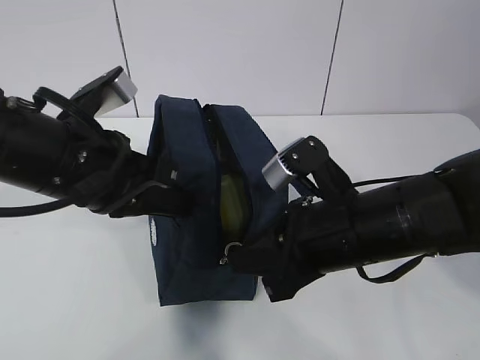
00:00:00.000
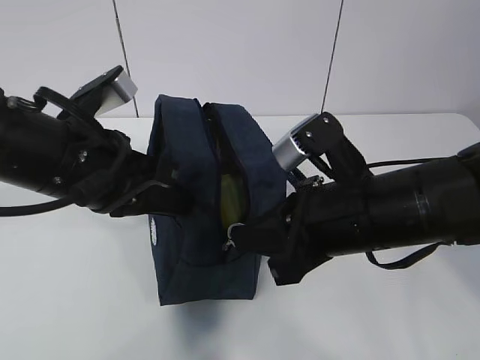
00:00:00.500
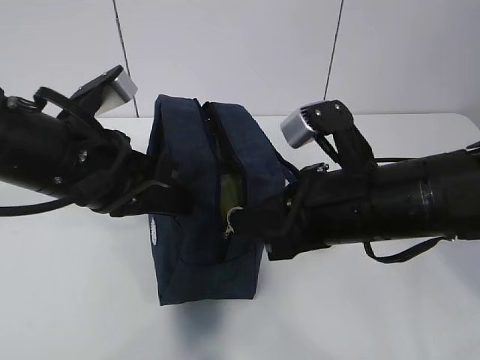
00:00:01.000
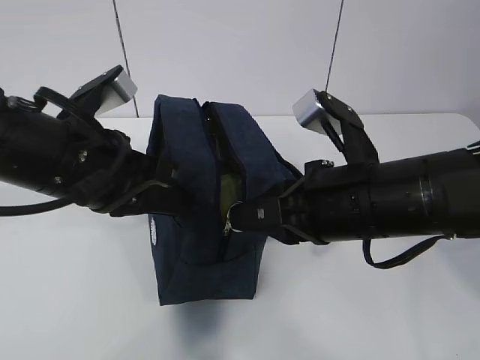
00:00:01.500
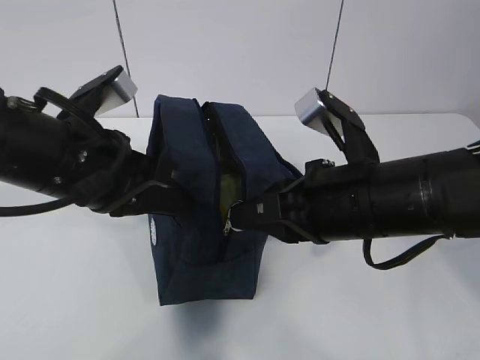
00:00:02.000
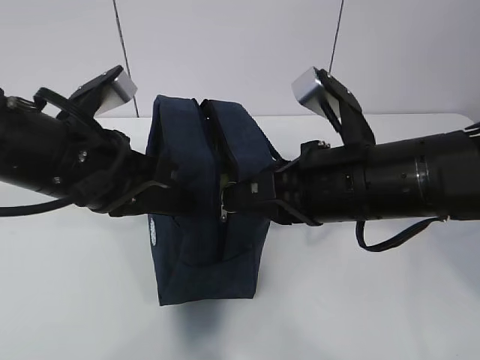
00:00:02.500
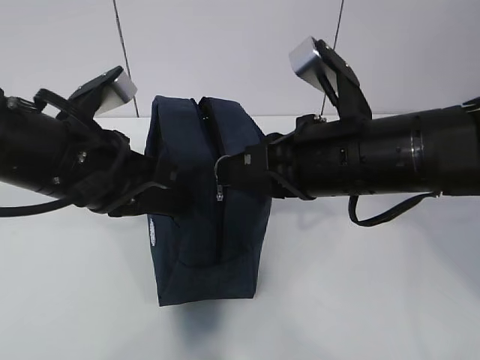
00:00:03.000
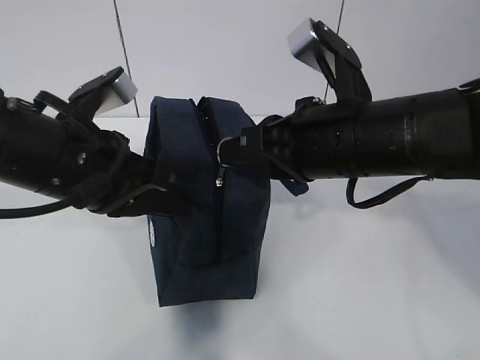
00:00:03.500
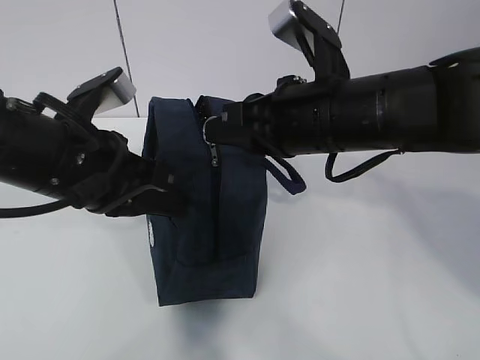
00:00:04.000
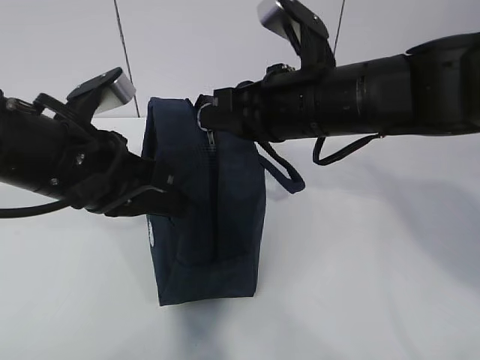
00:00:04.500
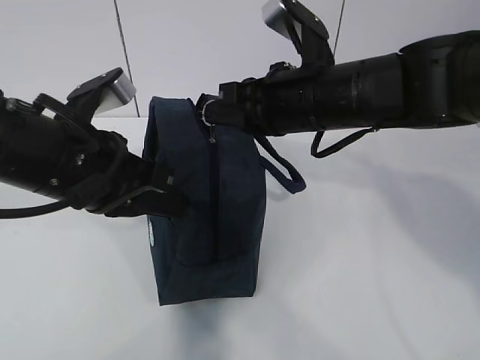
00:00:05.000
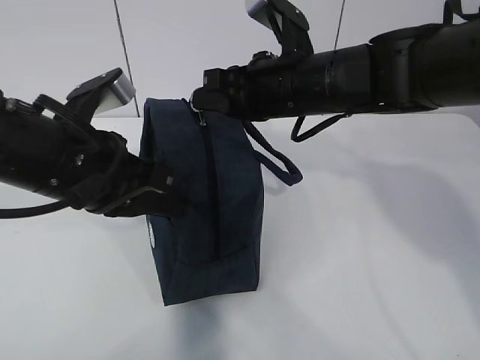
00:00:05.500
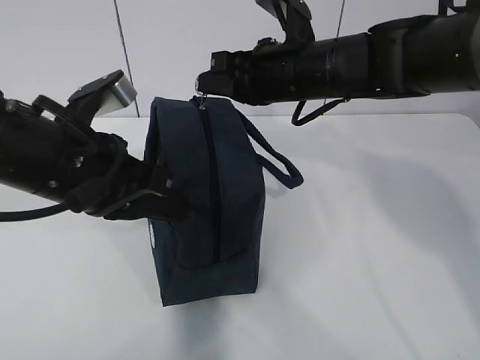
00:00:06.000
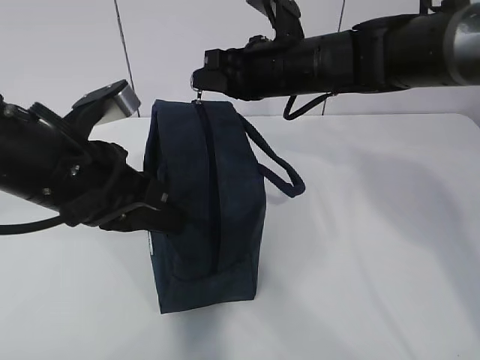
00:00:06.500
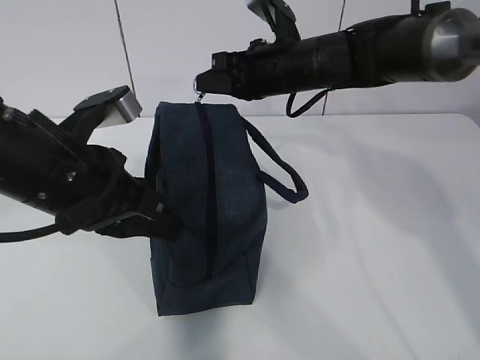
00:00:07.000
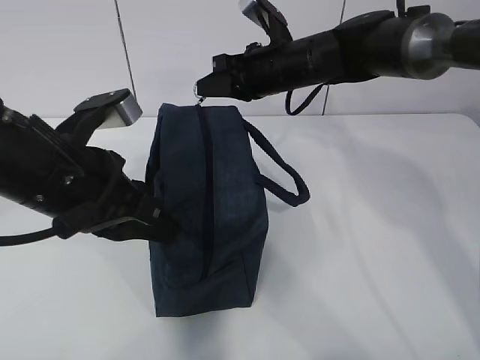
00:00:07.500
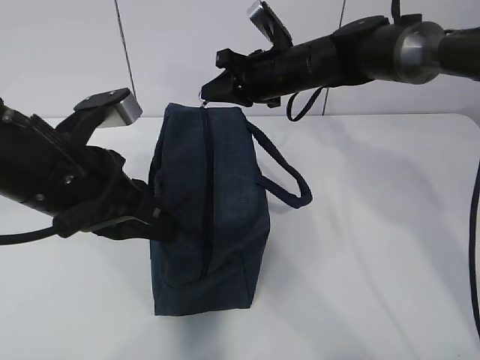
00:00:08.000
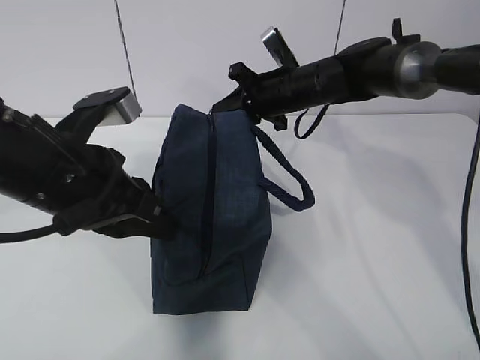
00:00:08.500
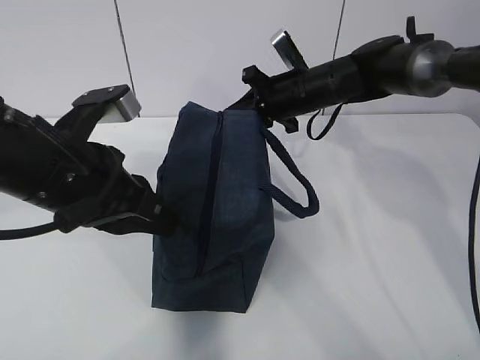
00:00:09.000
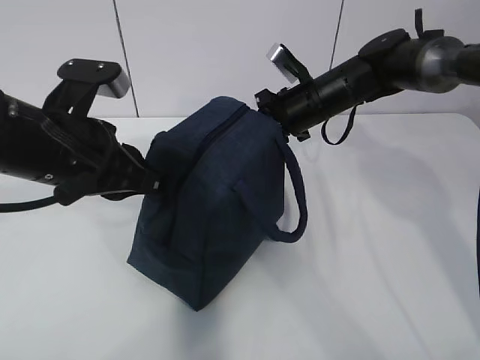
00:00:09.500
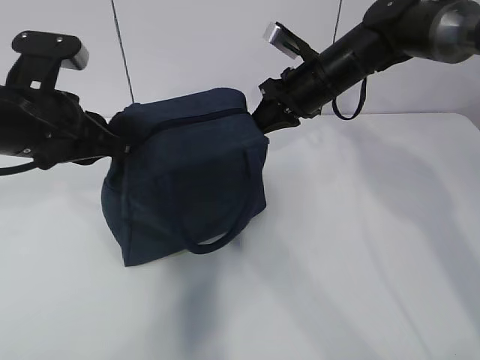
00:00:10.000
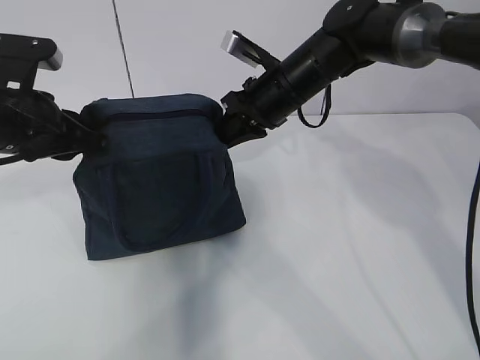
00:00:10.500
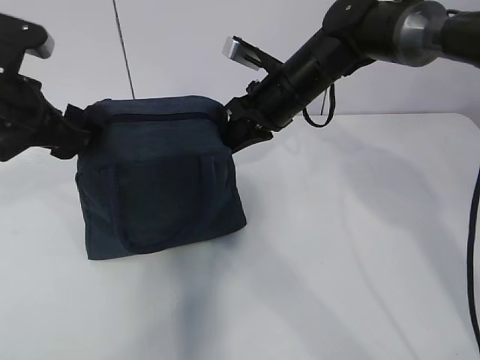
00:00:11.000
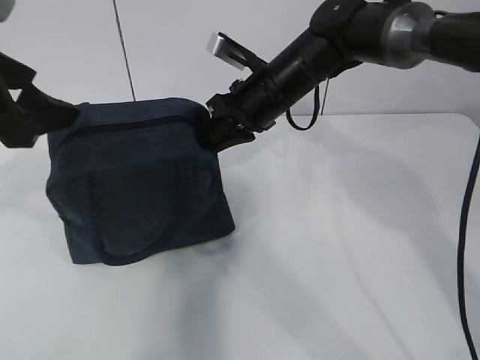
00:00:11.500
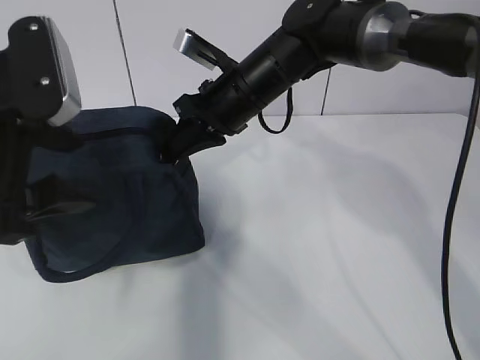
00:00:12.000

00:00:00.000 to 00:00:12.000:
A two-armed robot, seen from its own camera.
00:00:02.000 to 00:00:04.000: The right gripper moves approximately 5 cm.
00:00:04.000 to 00:00:06.000: The right gripper shifts some 10 cm forward.
00:00:06.000 to 00:00:08.000: The right gripper heads forward, covering some 10 cm.
00:00:08.000 to 00:00:10.000: The left gripper moves forward, about 5 cm.
00:00:10.000 to 00:00:12.000: The right gripper is displaced to the left by roughly 10 cm, while the left gripper travels backward and upward by roughly 10 cm, and opens up.

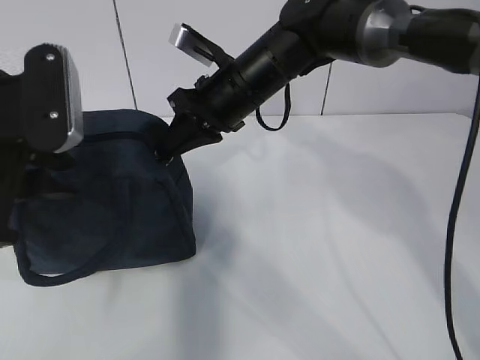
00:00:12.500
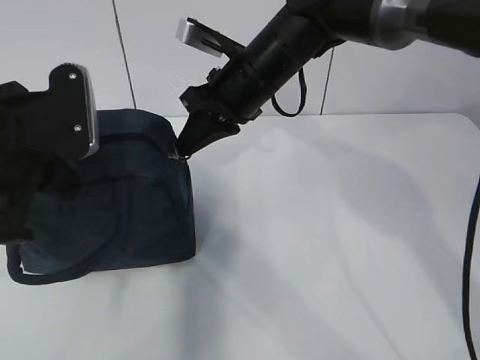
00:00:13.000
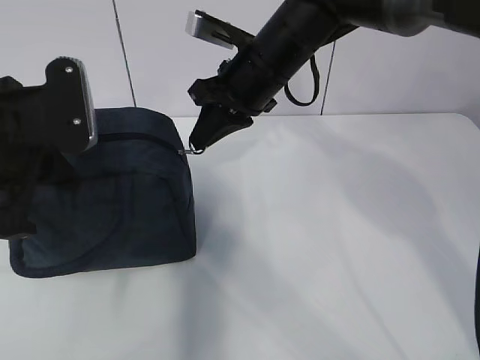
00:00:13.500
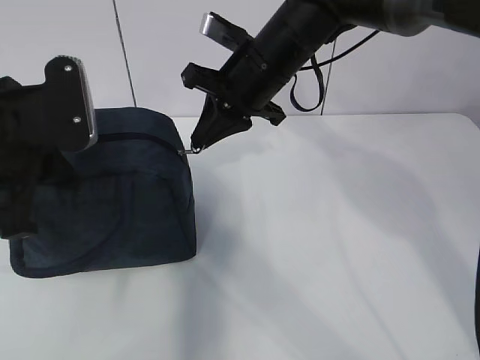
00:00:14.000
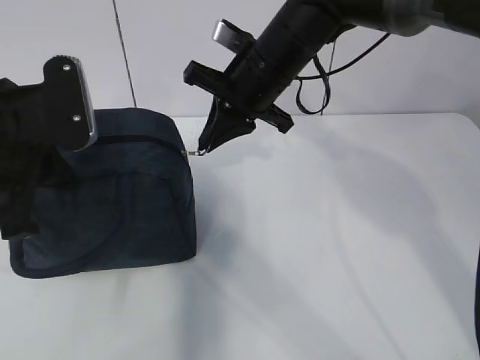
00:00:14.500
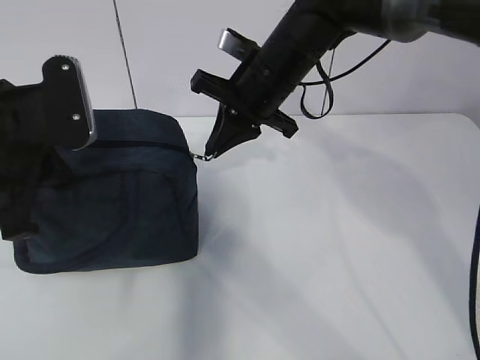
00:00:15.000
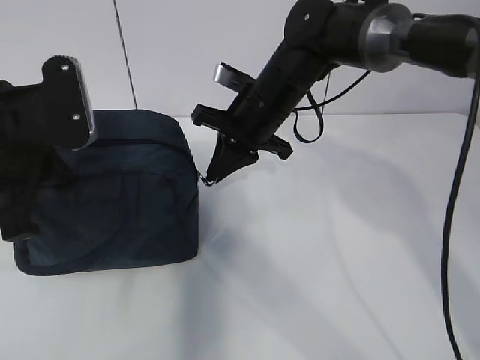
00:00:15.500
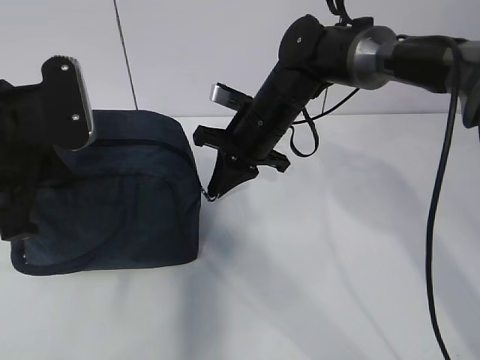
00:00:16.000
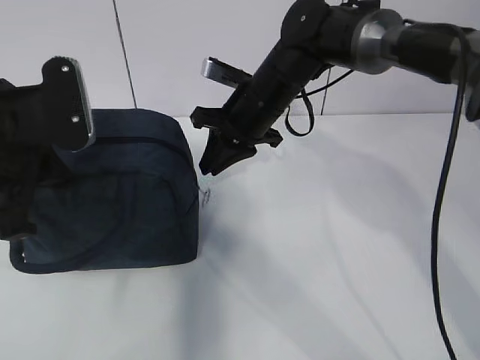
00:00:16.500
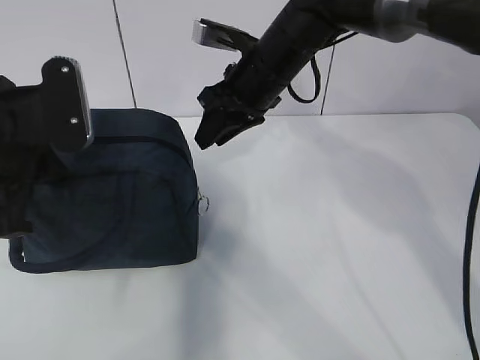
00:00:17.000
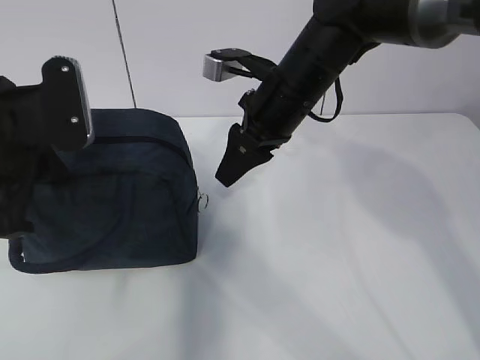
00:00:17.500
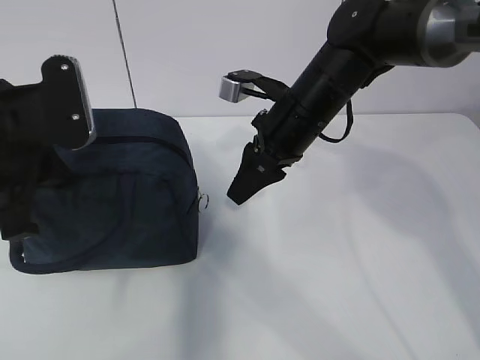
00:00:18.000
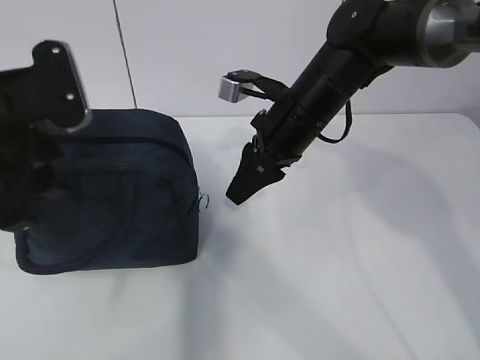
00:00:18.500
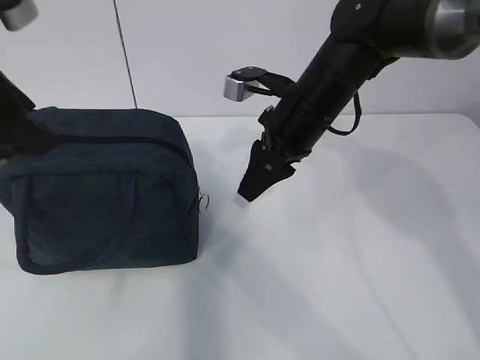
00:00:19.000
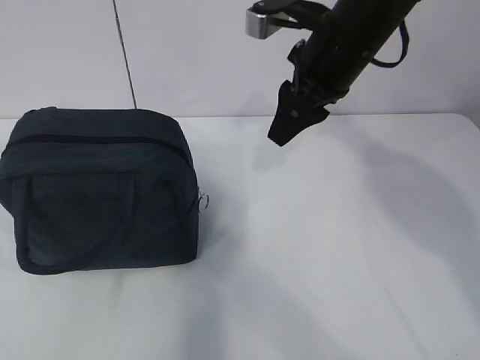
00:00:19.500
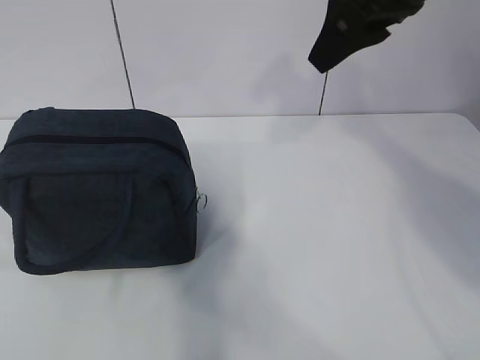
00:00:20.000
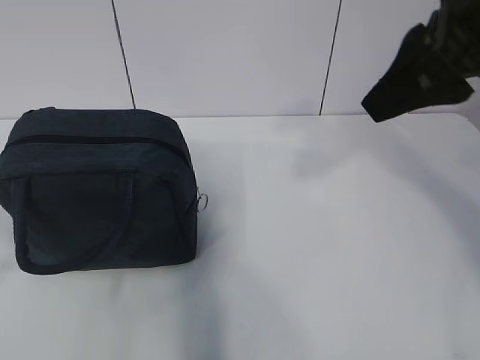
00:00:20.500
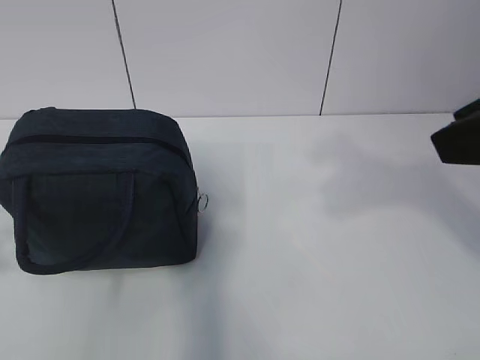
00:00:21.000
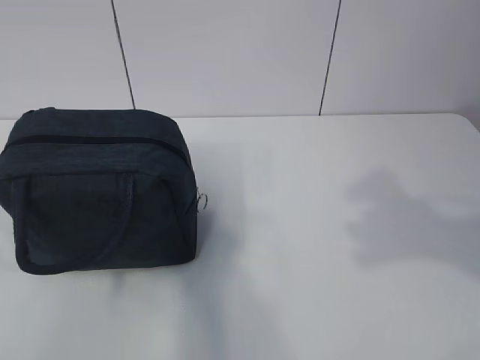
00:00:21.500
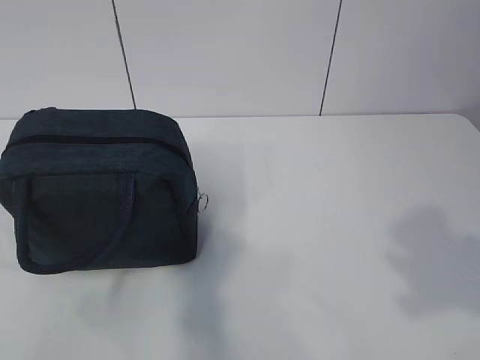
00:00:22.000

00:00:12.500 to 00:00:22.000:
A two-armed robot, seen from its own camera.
00:00:12.500 to 00:00:14.500: The left gripper closes.
00:00:14.500 to 00:00:16.500: The right gripper heads downward, covering roughly 5 cm.
00:00:16.500 to 00:00:18.000: The right gripper moves backward, roughly 5 cm, and opens.
00:00:18.000 to 00:00:20.000: The right gripper shifts about 15 cm upward; the left gripper moves upward, backward and to the left, about 15 cm, and opens its fingers.
00:00:20.000 to 00:00:22.000: The right gripper travels backward by some 30 cm. The left gripper is displaced backward, downward and to the left by about 20 cm.
